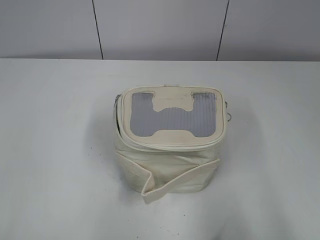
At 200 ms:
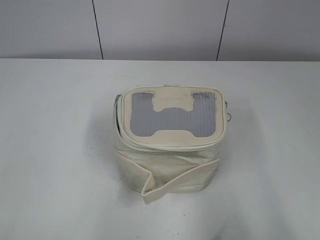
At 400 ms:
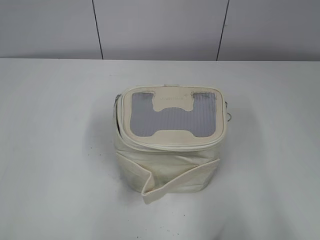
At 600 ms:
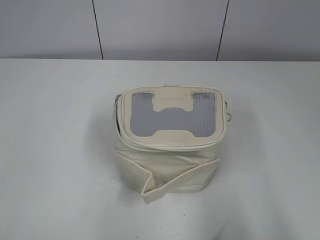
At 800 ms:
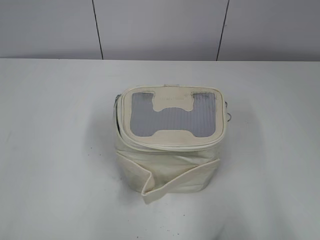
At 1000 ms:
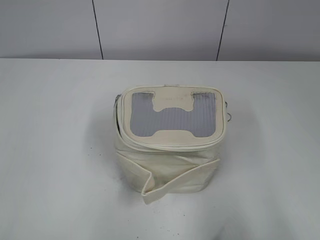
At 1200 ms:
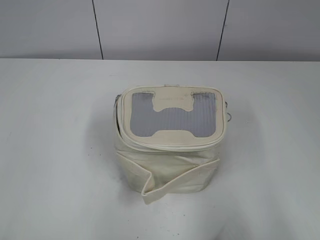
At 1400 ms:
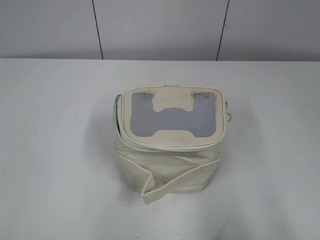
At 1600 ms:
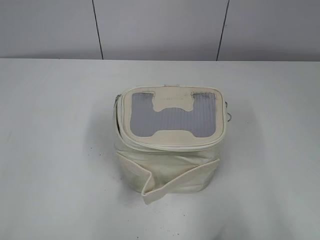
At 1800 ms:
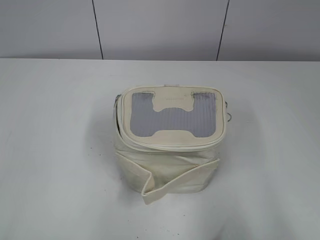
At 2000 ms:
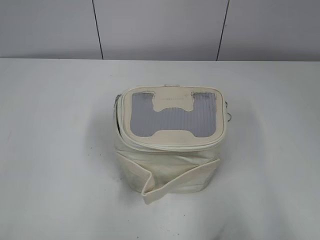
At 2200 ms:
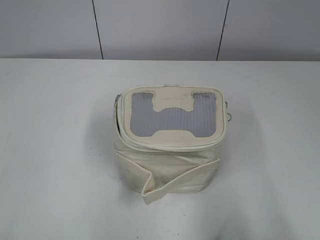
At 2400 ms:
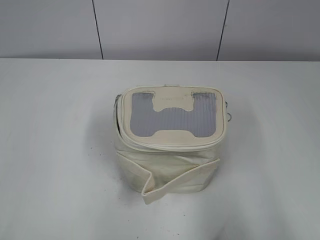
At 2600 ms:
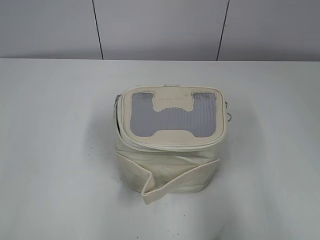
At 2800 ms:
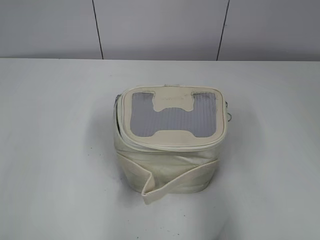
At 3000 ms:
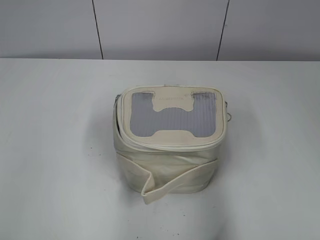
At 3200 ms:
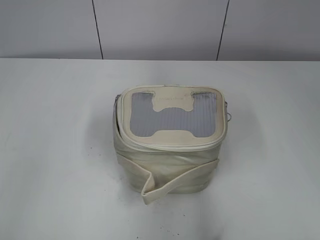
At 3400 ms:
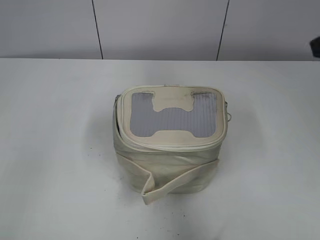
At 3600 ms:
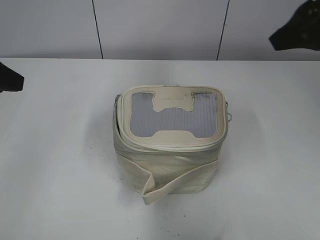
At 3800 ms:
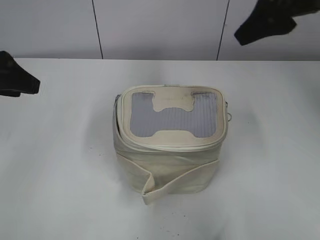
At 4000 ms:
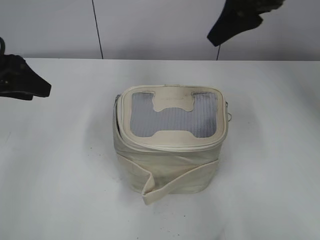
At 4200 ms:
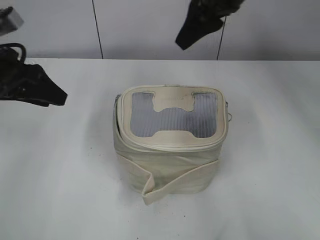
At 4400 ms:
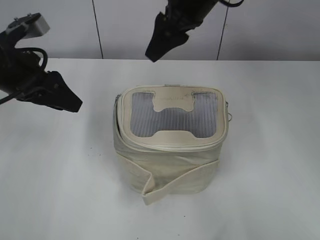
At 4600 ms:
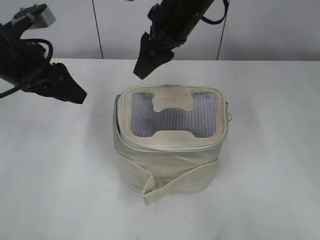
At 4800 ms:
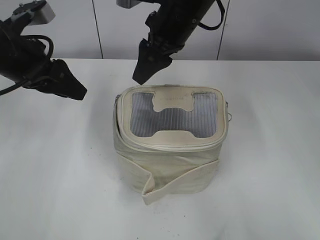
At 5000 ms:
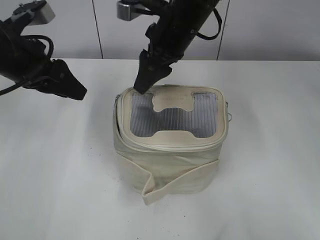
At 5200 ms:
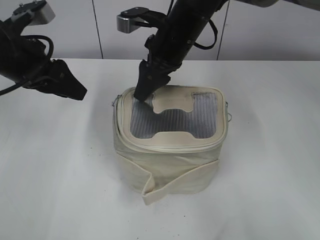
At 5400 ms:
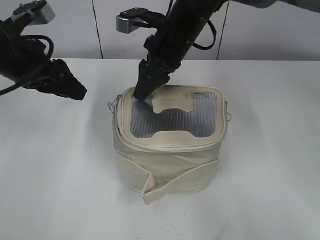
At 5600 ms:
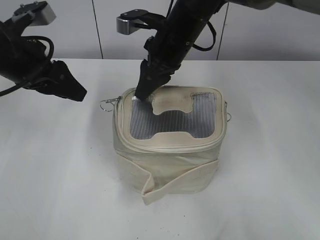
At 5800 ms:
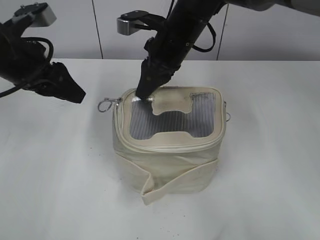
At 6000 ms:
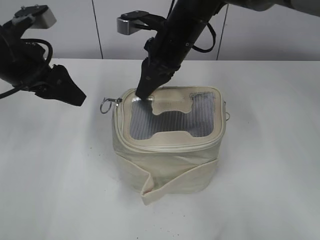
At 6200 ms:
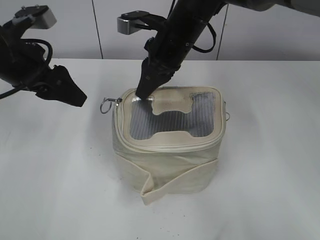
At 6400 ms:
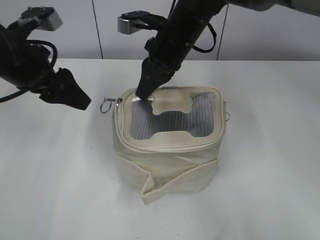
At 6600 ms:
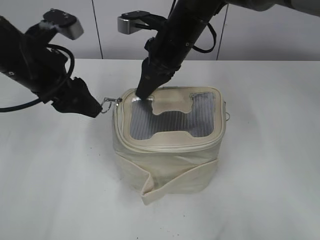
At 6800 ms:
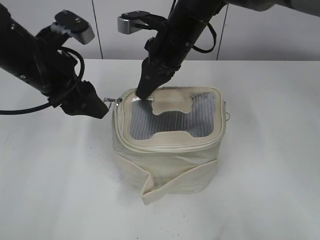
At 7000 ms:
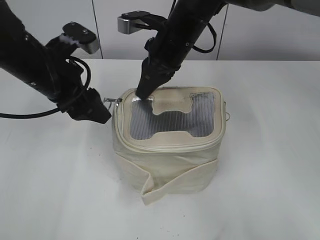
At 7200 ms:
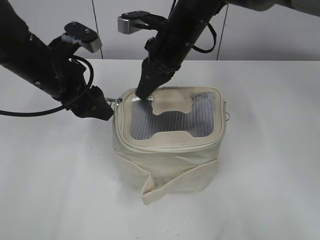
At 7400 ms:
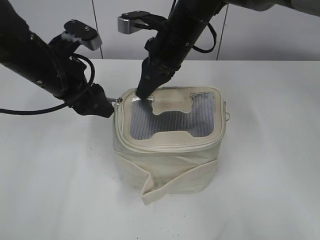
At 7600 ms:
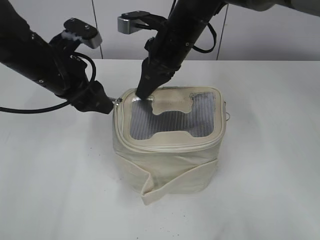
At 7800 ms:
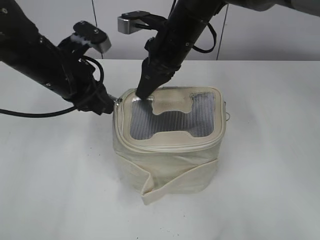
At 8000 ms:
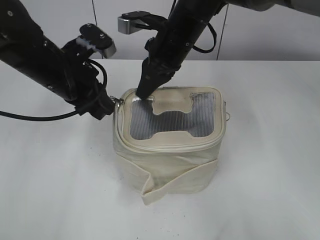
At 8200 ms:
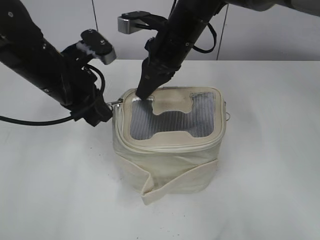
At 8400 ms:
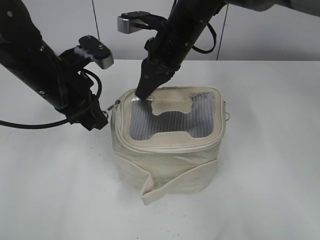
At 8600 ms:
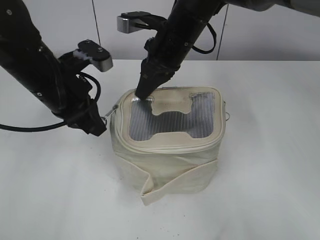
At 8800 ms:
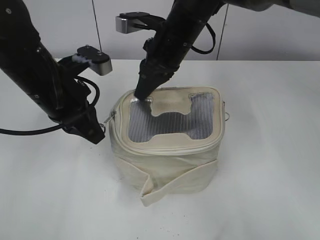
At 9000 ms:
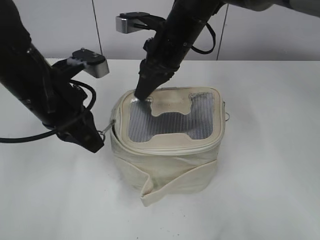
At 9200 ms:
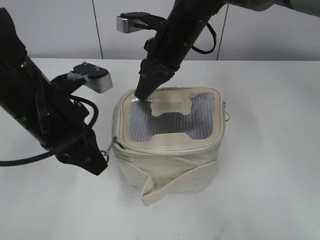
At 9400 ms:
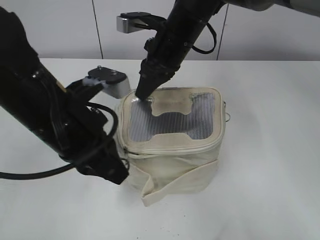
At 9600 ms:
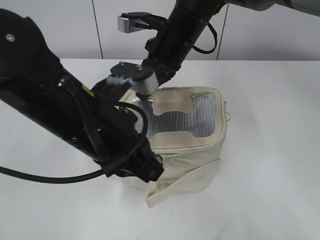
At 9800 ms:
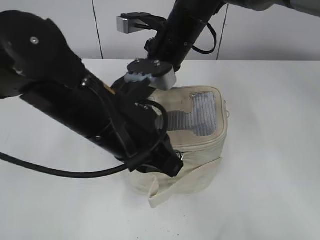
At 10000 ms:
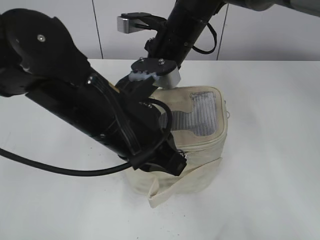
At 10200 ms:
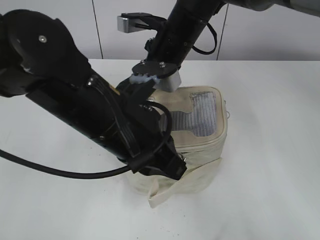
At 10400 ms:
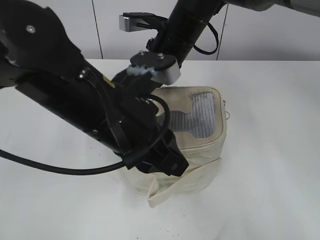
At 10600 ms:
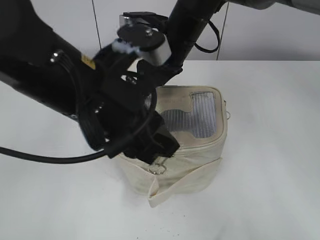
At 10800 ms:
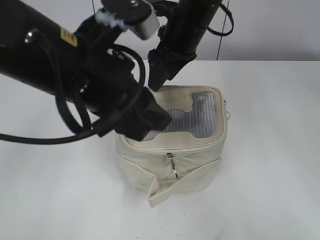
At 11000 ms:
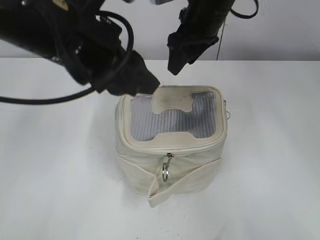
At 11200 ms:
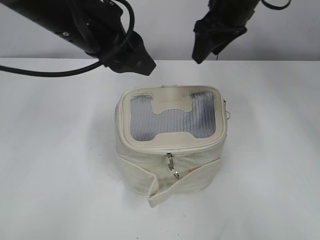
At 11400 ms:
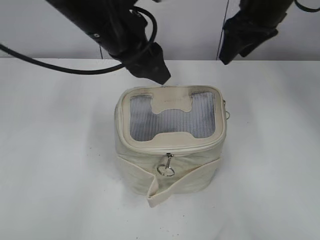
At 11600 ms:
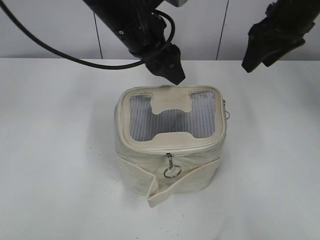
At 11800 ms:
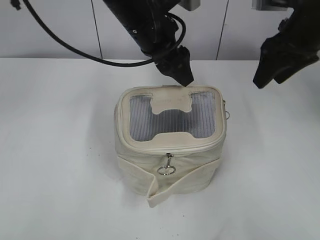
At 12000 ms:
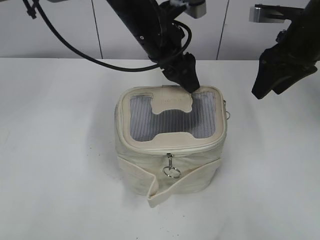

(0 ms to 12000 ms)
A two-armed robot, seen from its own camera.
Step, 0 ms - 10400 ms: Zip up the bag with your left hand.
1600 ms - 3000 ms: The two grippers go about 10 cm forward.
3000 ms - 4400 ms: The right gripper heads forward and to the left, covering approximately 40 cm. Meanwhile the left gripper heads forward, covering about 20 cm.
4400 ms - 6000 ms: The right gripper heads downward, covering roughly 10 cm, and closes up.
6000 ms - 7600 ms: The left gripper moves to the right, about 5 cm.
7600 ms - 9000 ms: The left gripper moves backward, about 5 cm, and closes up.
9000 ms - 10400 ms: The left gripper travels to the right and backward by approximately 10 cm, and opens. The right gripper opens.
10400 ms - 12000 ms: The left gripper is displaced forward by roughly 20 cm, and opens its fingers; the right gripper goes approximately 20 cm to the right, and opens.

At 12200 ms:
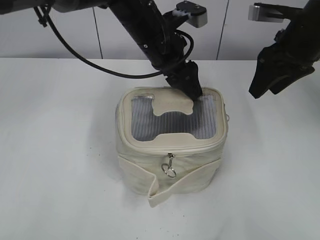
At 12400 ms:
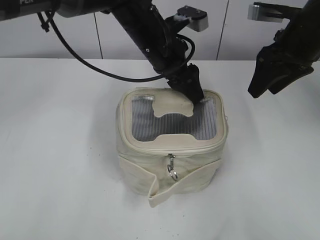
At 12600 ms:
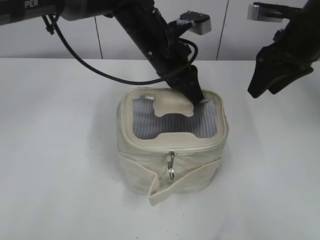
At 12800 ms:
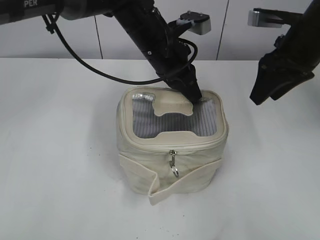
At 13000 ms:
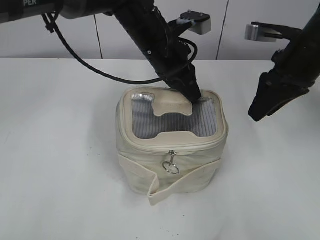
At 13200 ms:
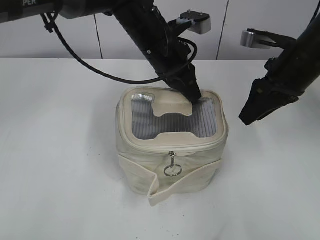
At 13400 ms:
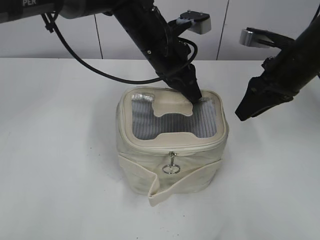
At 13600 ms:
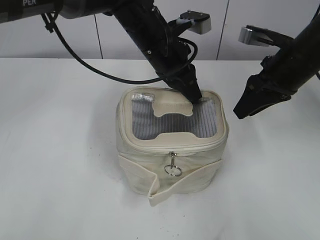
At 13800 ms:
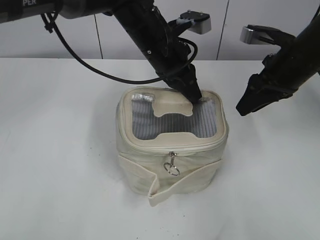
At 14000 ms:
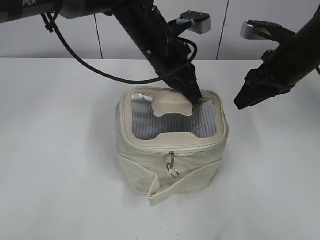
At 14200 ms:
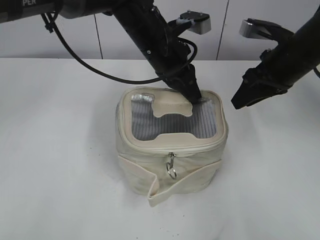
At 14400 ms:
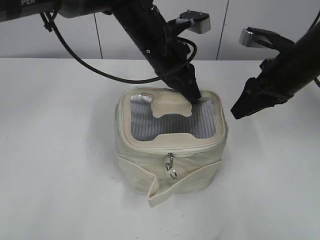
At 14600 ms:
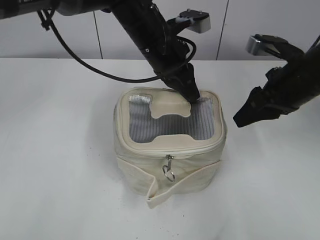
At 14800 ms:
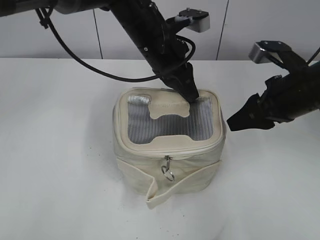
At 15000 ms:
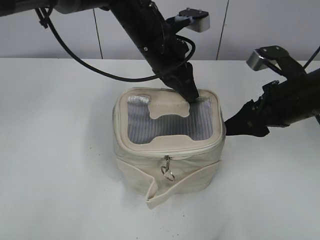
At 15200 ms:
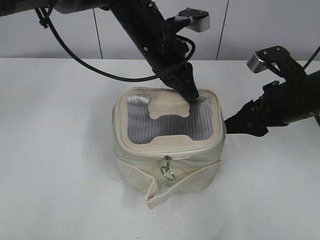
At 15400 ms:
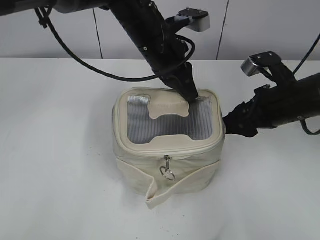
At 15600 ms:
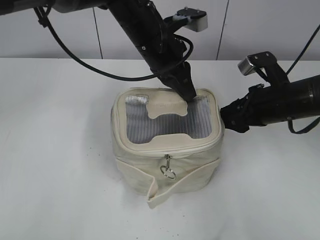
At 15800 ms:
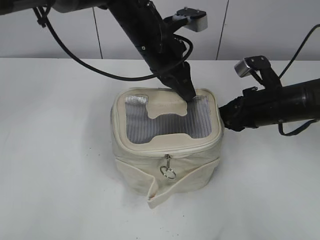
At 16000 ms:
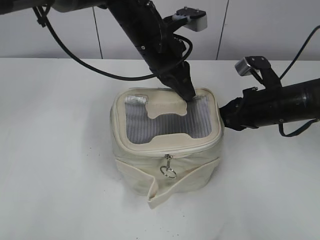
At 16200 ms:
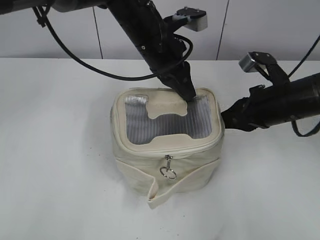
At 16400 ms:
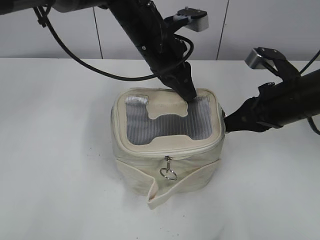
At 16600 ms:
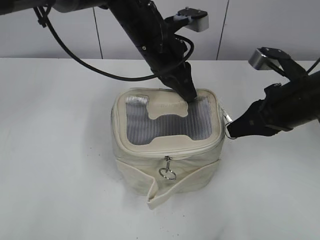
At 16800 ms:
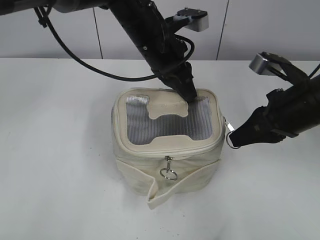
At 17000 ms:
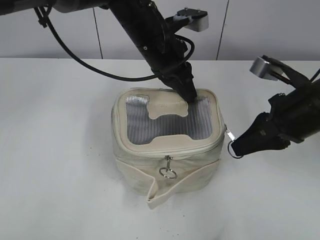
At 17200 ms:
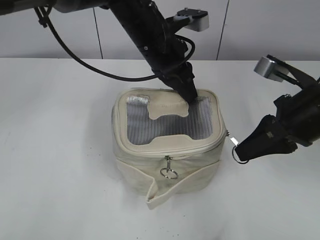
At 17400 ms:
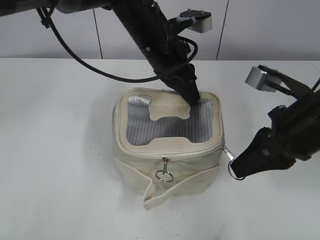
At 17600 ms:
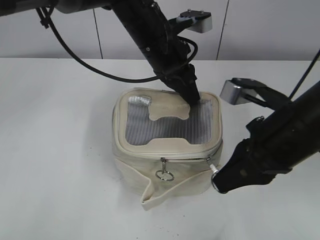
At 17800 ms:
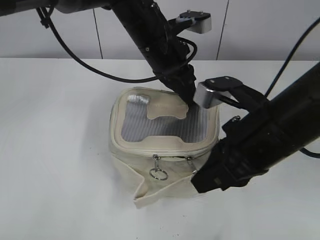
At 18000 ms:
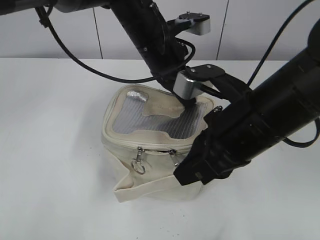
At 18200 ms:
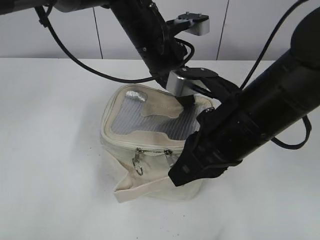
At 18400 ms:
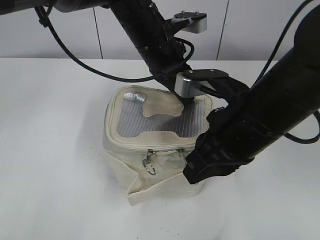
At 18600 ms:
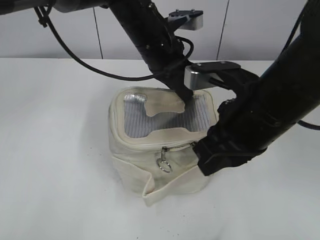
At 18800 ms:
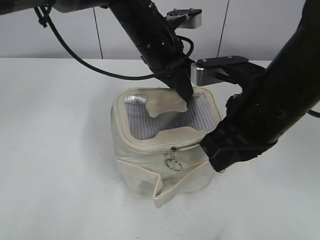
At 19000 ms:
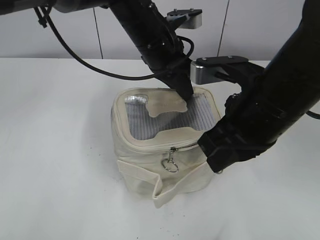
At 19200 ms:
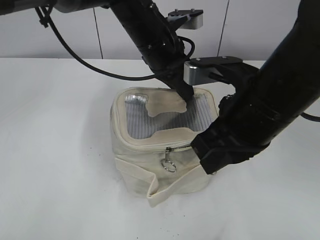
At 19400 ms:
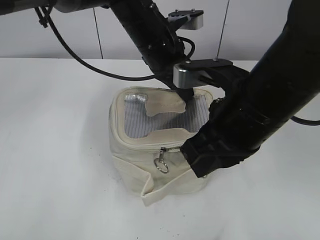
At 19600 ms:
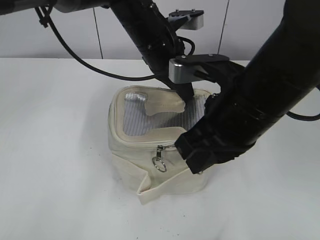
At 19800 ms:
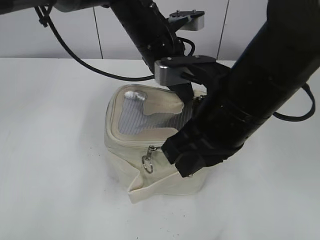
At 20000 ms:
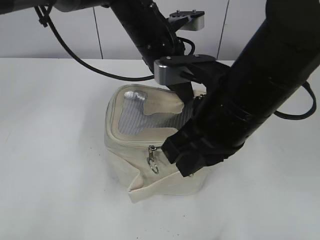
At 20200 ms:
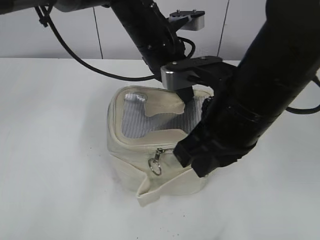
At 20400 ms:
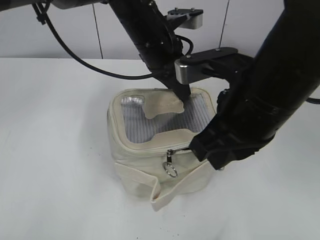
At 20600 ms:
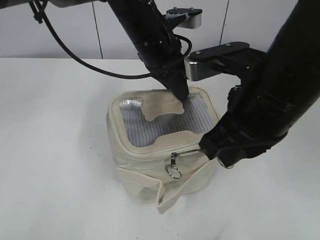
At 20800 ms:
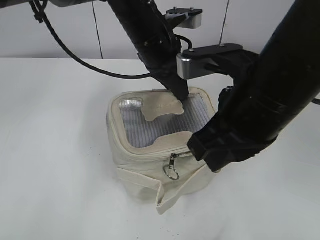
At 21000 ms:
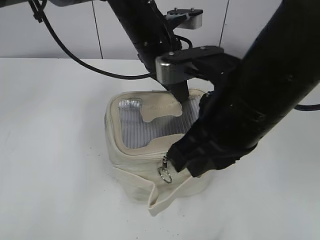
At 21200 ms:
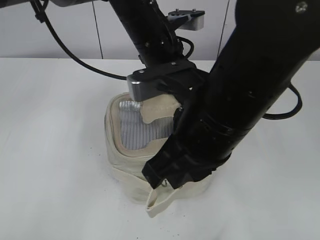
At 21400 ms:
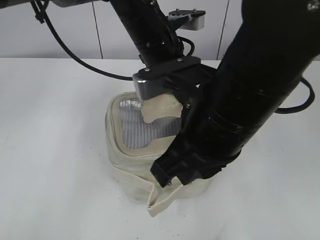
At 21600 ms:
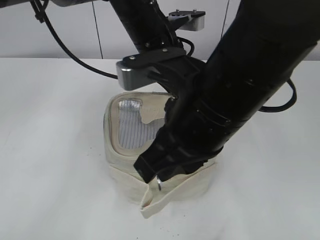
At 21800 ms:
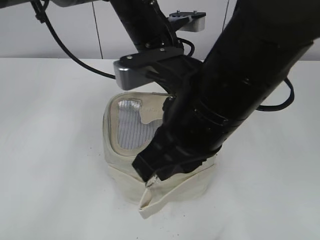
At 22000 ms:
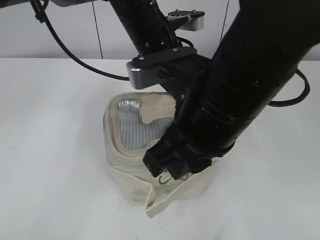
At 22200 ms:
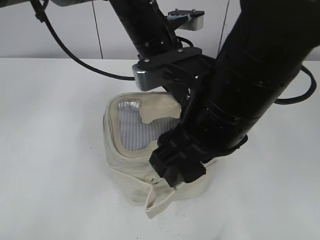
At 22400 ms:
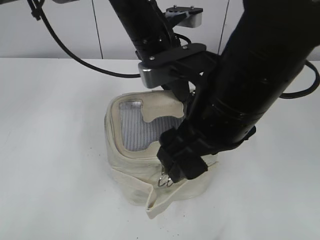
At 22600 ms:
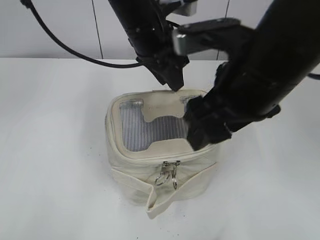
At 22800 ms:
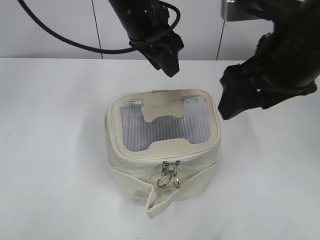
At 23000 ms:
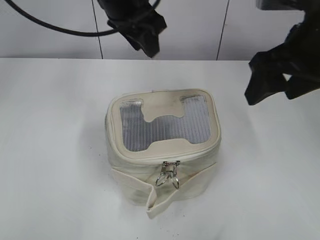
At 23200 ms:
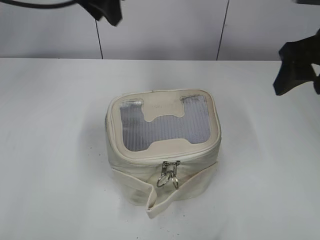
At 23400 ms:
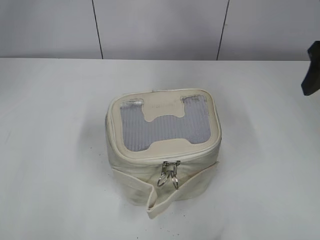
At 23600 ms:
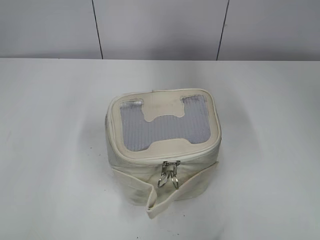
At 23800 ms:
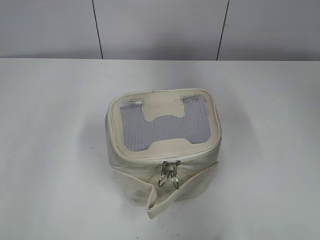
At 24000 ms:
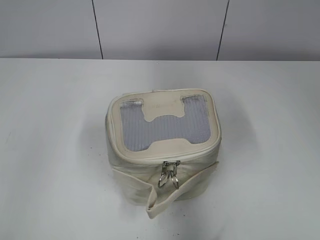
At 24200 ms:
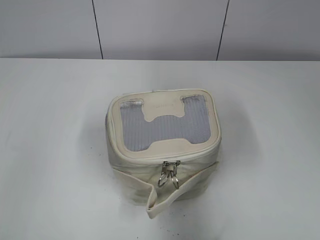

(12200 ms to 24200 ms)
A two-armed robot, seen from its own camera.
Step, 12200 ms - 22200 ms: Zip up the bag with your right hand.
12200 ms - 13800 ms: The left gripper closes.
13800 ms - 15200 ms: The right gripper travels backward by approximately 5 cm.
15200 ms - 16600 ms: The right gripper closes up.
16600 ms - 18200 ms: The right gripper travels to the left and backward by approximately 15 cm.
18200 ms - 19800 ms: The grippers make only small movements.
19800 ms - 21200 ms: The grippers move only a little.
21200 ms - 22600 ms: The left gripper opens its fingers, while the right gripper shifts by approximately 5 cm, and opens its fingers.
22600 ms - 24200 ms: The right gripper heads to the right, covering roughly 20 cm. Meanwhile the left gripper travels to the left and backward by roughly 35 cm.
